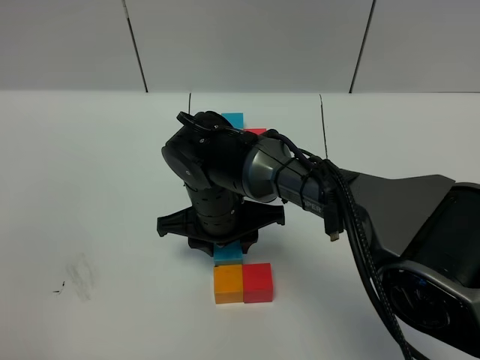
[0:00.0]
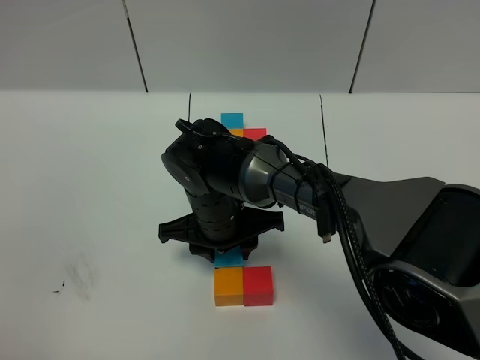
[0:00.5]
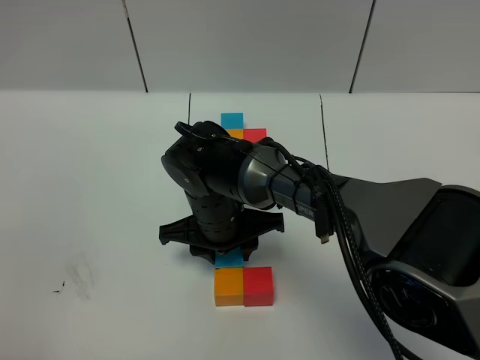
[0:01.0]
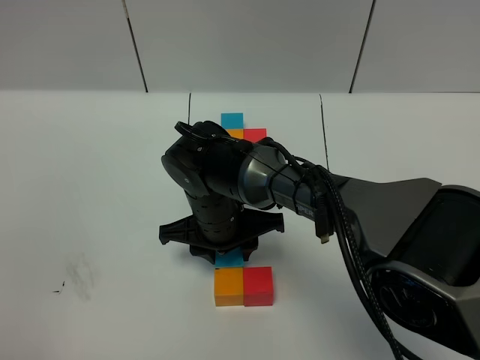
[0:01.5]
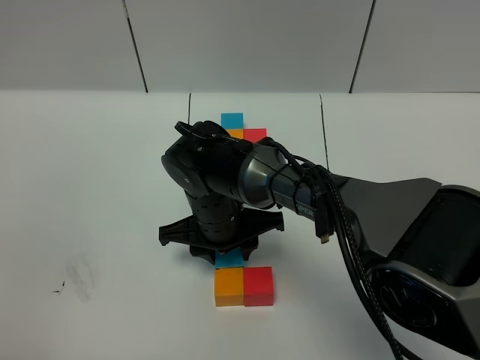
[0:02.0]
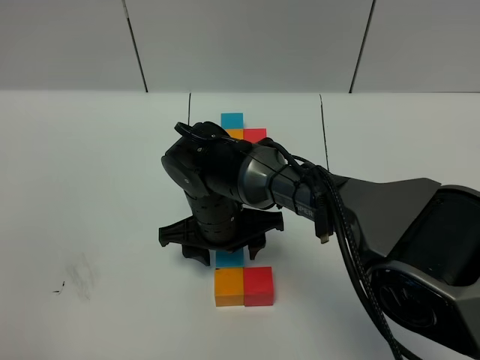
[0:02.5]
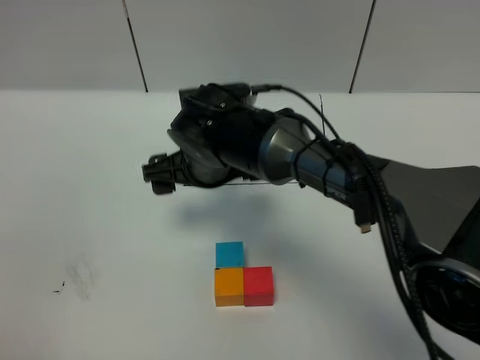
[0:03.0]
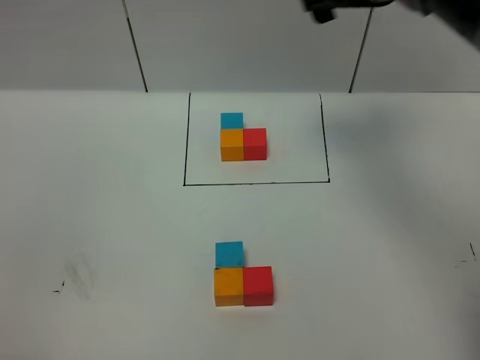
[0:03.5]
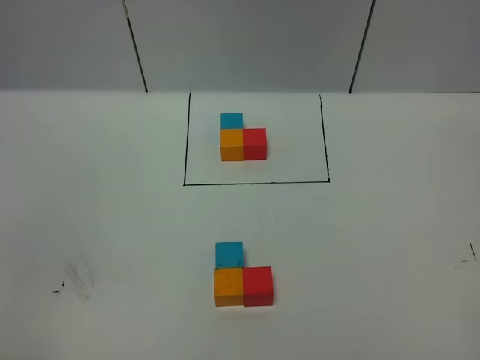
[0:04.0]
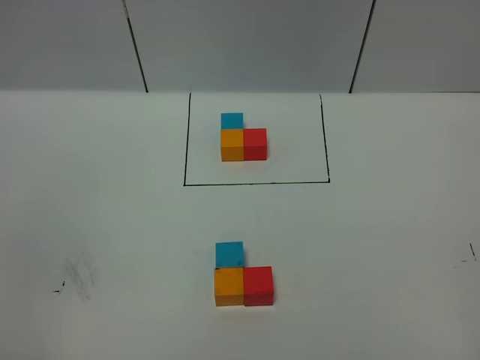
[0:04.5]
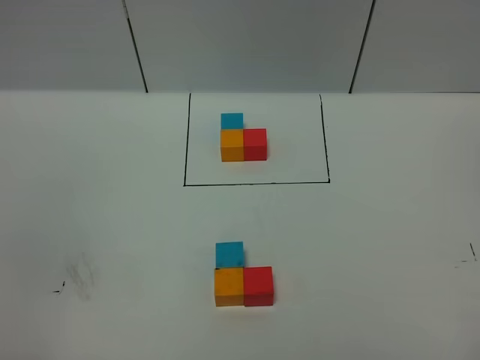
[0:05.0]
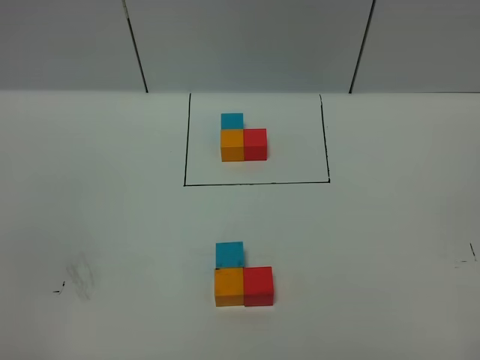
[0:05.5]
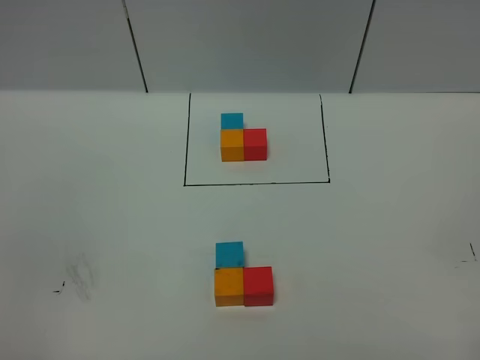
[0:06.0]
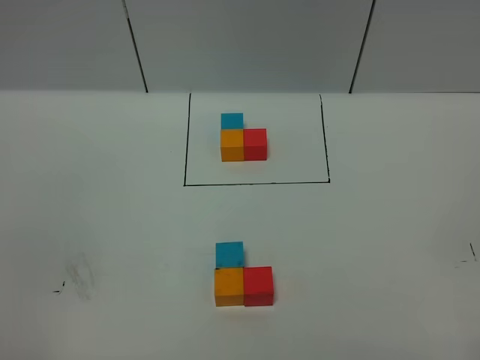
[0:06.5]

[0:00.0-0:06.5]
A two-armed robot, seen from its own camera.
Task of the whole recording: According to the building block template in front, assemble the scattered blocks together.
Step, 0:00.0 to 0:02.5: Put the blue cube in the front of the orange cube.
0:00.0 to 0:02.0: The grippers move only a little.
0:02.0 to 0:04.5: The right gripper goes roughly 60 cm upward, to the right and backward, and opens up.
